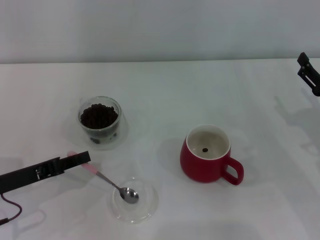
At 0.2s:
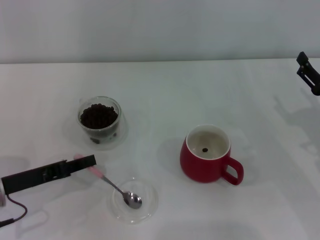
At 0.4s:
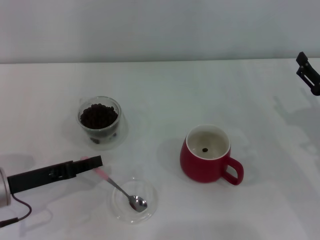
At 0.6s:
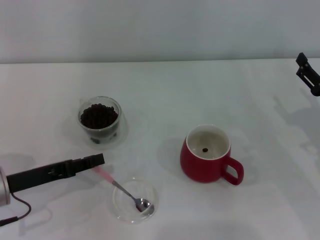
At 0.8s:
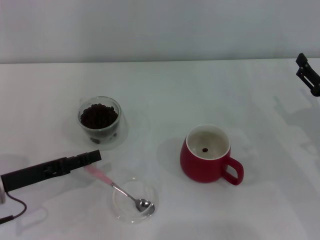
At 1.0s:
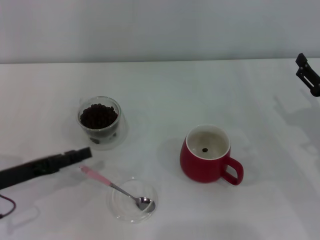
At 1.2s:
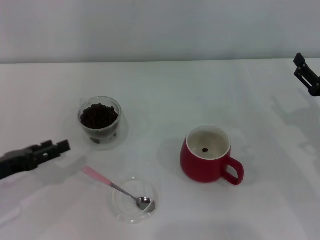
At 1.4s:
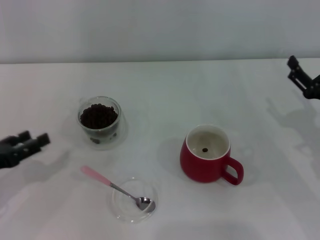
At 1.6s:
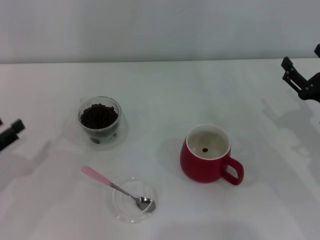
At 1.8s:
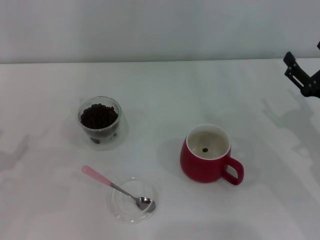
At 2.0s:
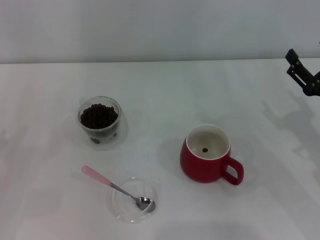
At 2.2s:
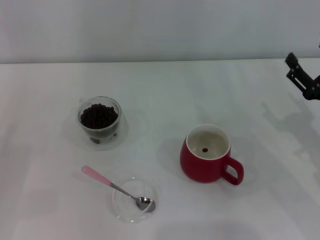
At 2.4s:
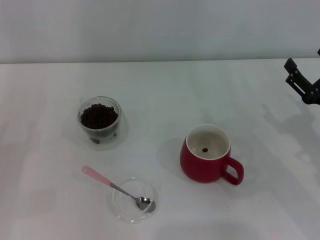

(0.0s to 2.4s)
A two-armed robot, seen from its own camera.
Task of the whole recording: Use a pink spoon to take out the coffee beans from the glass and pour them into the red cup.
0.0s - 1.2s: The left gripper opens its fingers.
1.2s - 2.4s: The left gripper heads to the left, covering about 5 cm.
